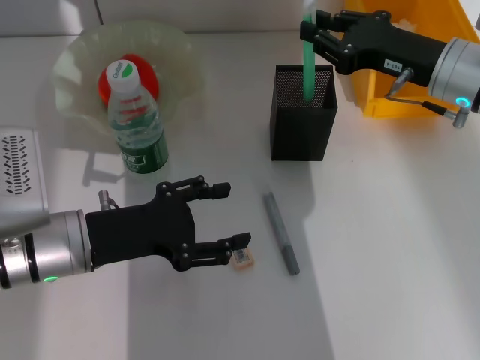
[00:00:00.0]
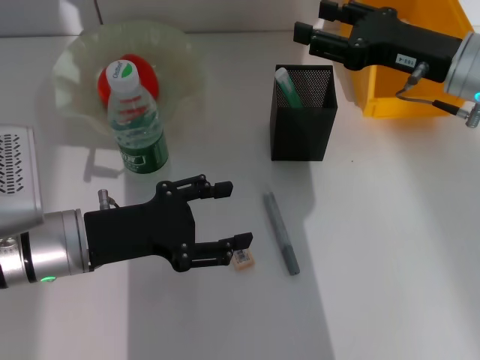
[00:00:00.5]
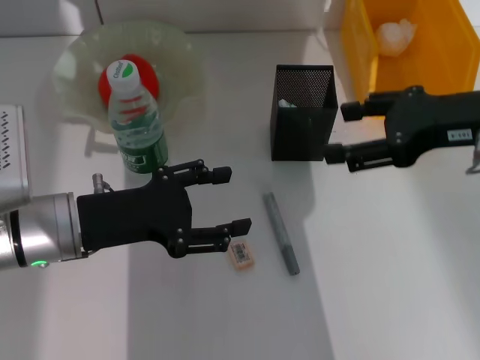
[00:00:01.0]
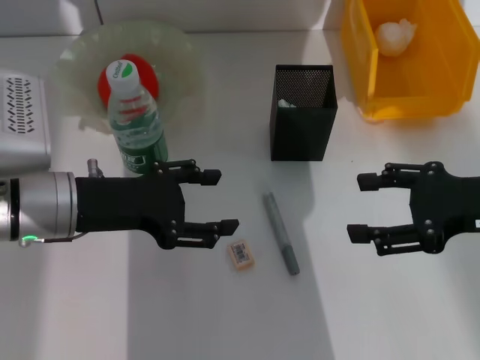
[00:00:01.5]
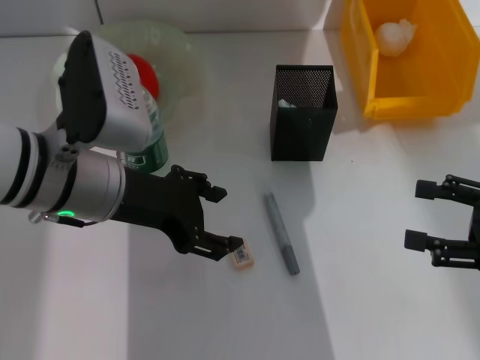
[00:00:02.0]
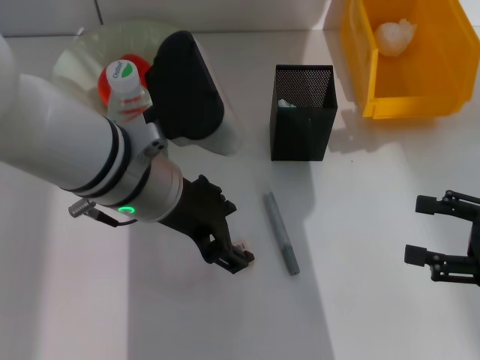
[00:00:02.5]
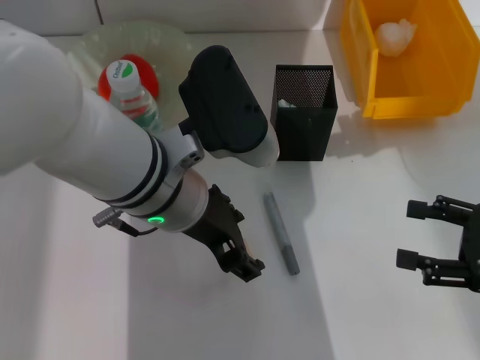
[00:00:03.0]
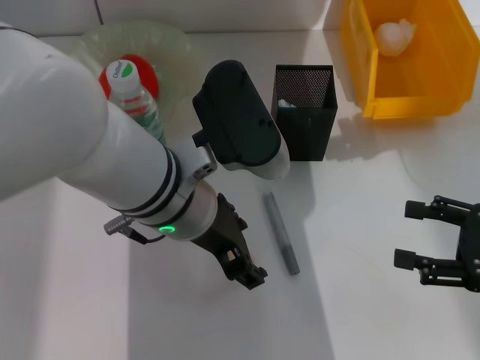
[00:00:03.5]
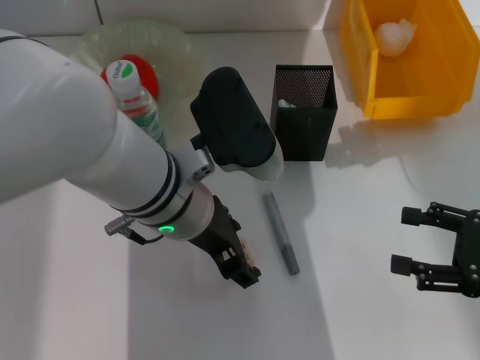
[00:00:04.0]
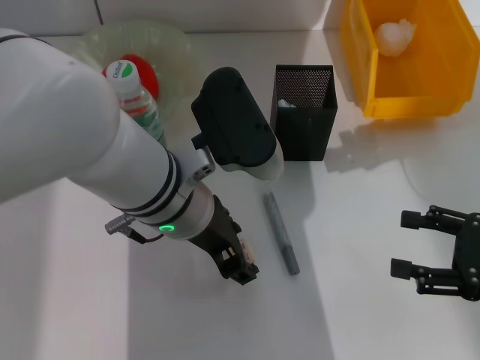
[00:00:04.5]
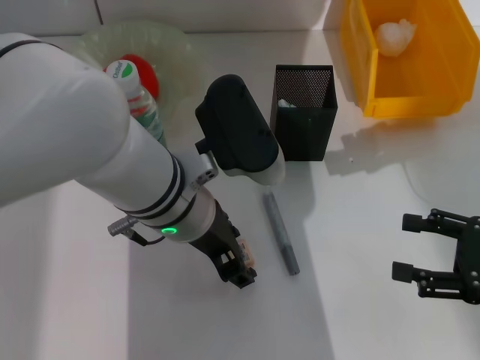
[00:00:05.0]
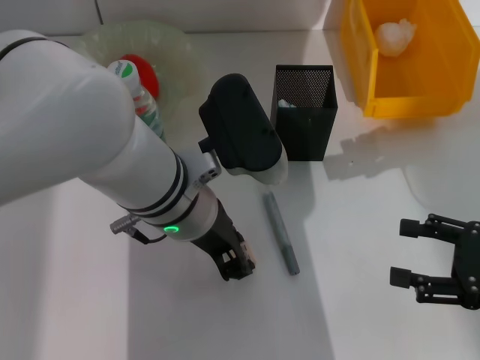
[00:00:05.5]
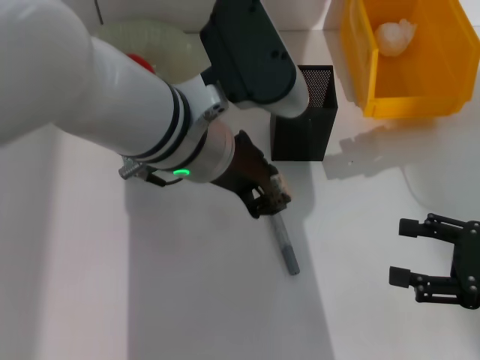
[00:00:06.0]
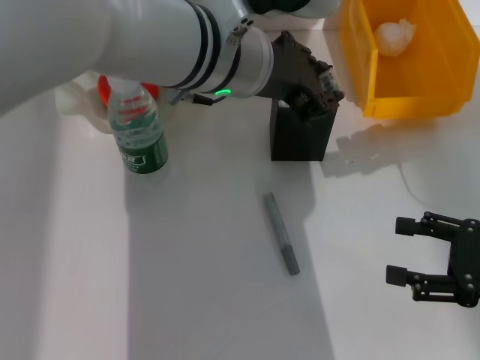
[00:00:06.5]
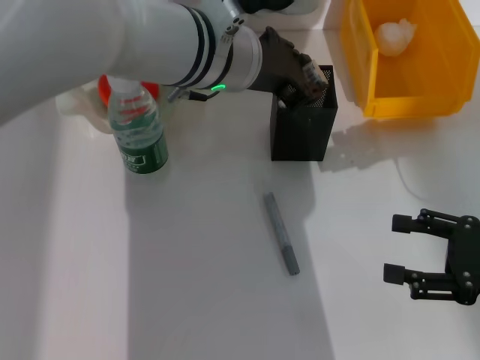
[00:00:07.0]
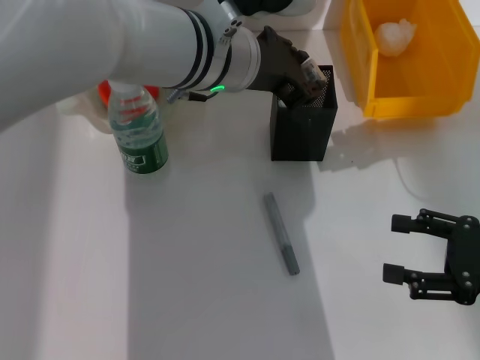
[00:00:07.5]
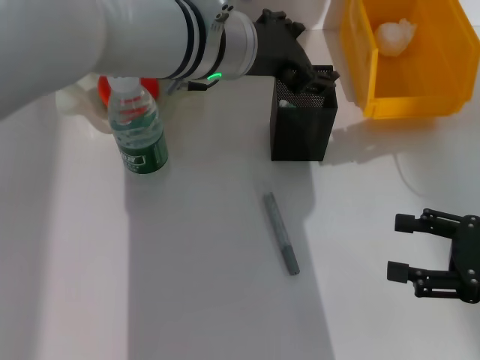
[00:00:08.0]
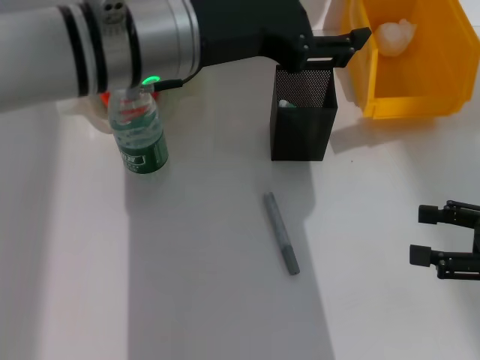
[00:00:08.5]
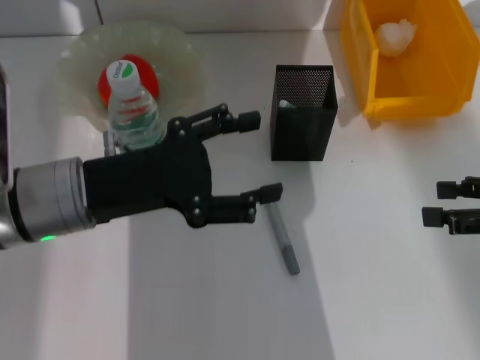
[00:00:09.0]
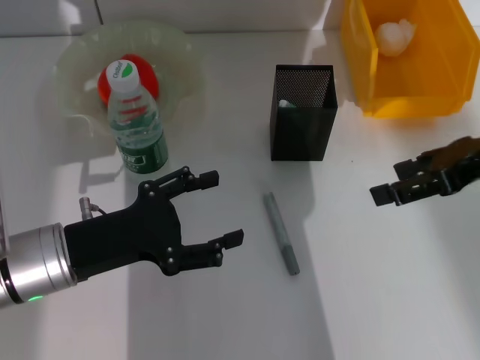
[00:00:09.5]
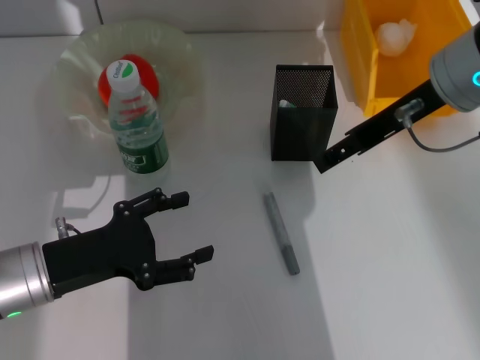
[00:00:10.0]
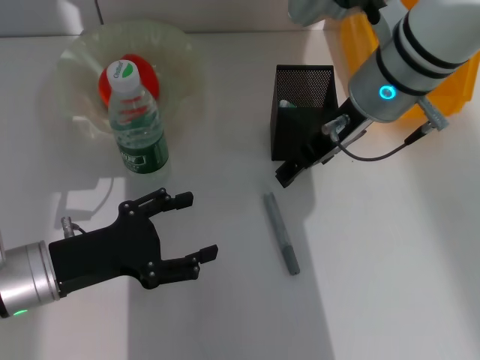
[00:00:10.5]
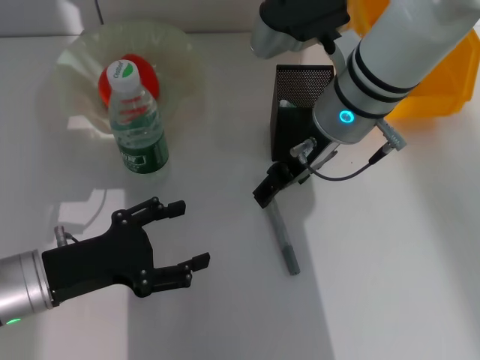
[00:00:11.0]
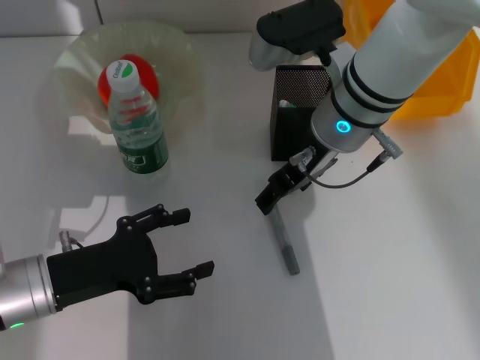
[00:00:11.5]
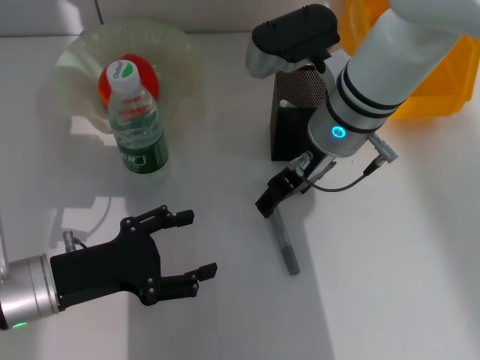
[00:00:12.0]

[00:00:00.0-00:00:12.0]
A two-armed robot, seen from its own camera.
Step, 00:00:00.5 to 00:00:05.5: Grab the eraser with the right hand.
00:00:00.0 to 00:00:02.0: The right gripper is displaced backward and to the right by about 20 cm, and opens up. Meanwhile the left gripper heads upward, covering about 10 cm.
00:00:02.0 to 00:00:04.0: The left gripper shifts some 10 cm to the right.
00:00:04.0 to 00:00:06.0: The left gripper changes place by roughly 5 cm, and closes its fingers.
00:00:06.0 to 00:00:08.0: The left gripper moves forward, roughly 5 cm, and opens.
00:00:08.0 to 00:00:10.0: The right gripper moves to the left, upward and forward, approximately 25 cm; the left gripper travels to the left, downward and backward by roughly 30 cm.
00:00:10.0 to 00:00:12.0: The right gripper travels to the left and downward by about 10 cm.

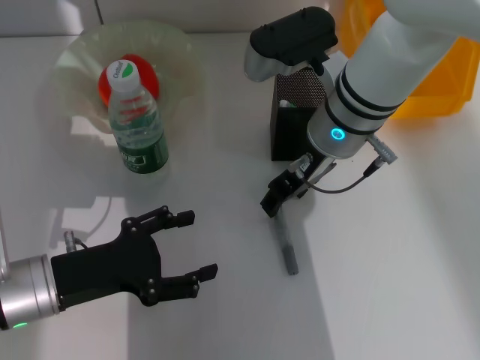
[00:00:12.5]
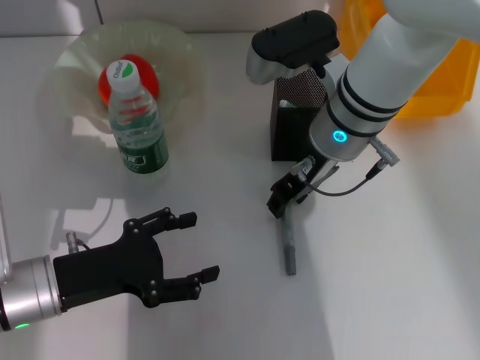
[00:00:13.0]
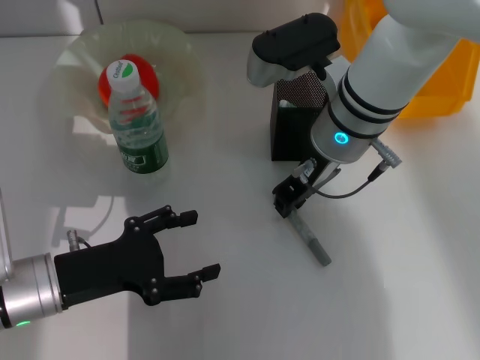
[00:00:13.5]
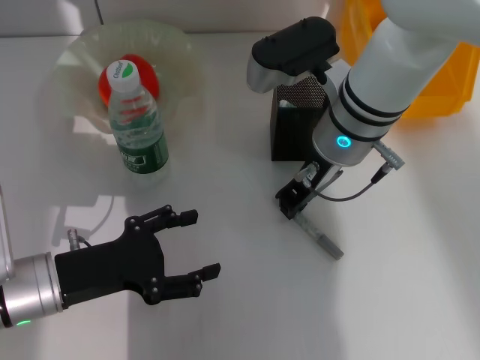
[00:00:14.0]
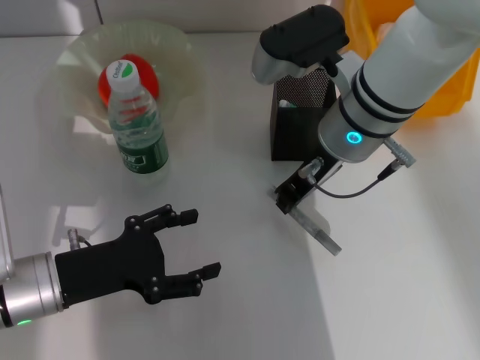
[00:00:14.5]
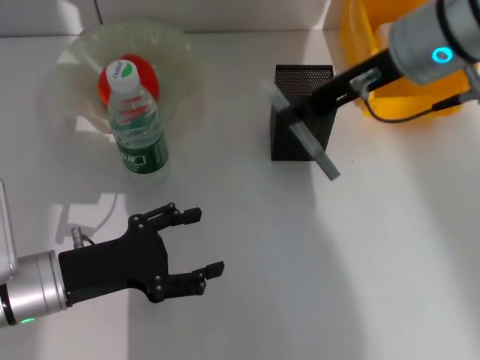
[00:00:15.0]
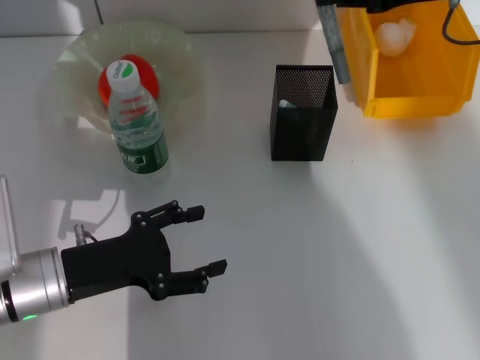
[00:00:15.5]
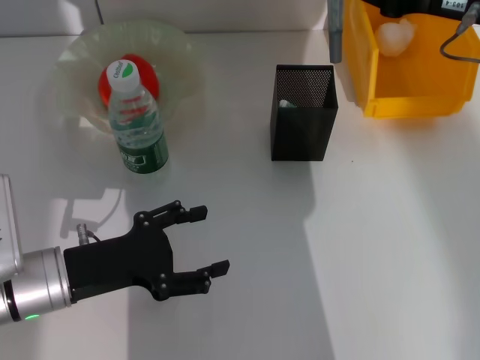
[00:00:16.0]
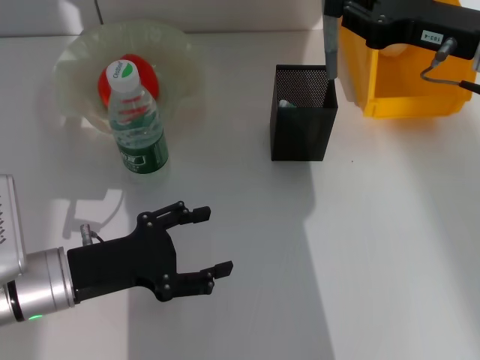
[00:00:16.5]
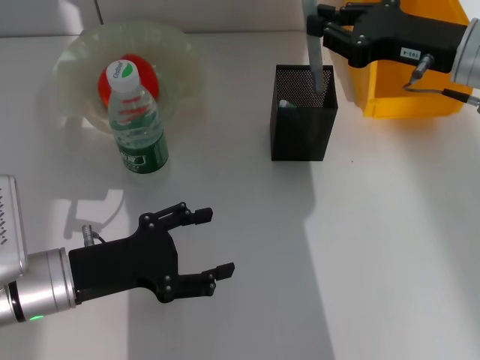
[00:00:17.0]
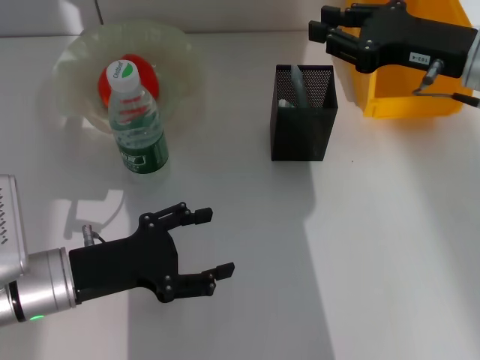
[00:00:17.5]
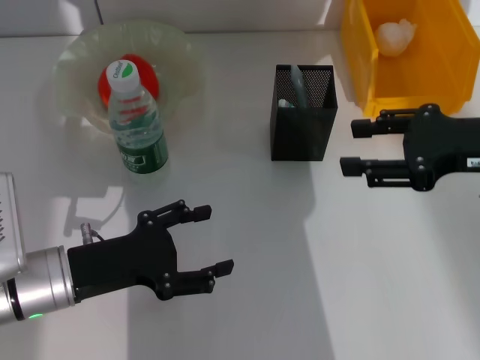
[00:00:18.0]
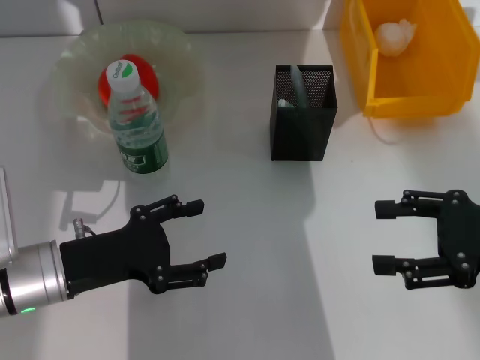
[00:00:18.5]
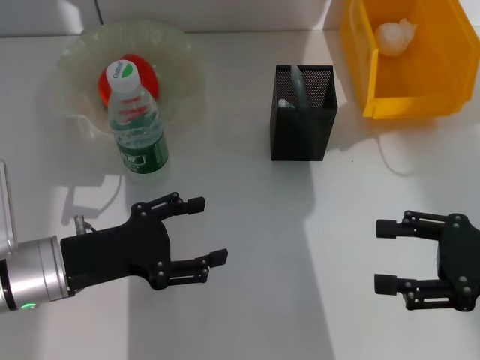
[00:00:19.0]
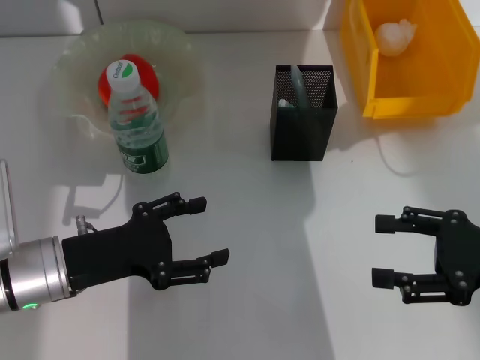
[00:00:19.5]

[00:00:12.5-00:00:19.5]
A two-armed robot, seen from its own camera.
Step, 00:00:14.0 to 00:00:17.0: Place the gray glue into the pen holder with the right hand.
00:00:12.5 to 00:00:14.5: The right gripper closes its fingers.
00:00:14.5 to 00:00:16.0: The right gripper heads to the right, covering approximately 15 cm.
00:00:16.0 to 00:00:17.5: The right gripper shifts about 5 cm downward.
00:00:17.5 to 00:00:19.5: The right gripper moves backward, to the right and downward, some 15 cm, and opens.
